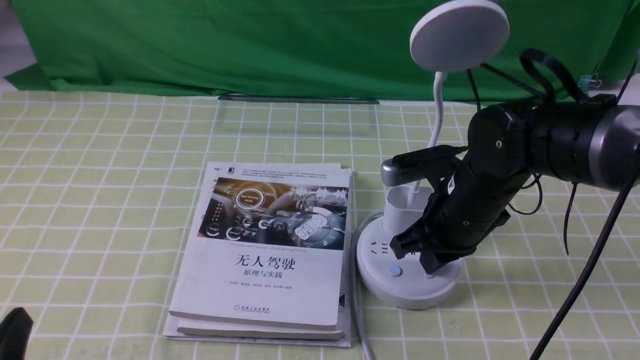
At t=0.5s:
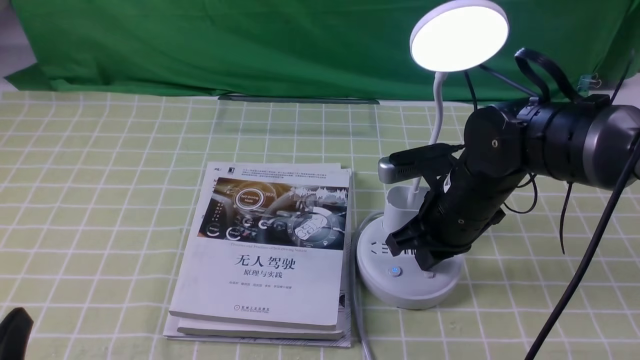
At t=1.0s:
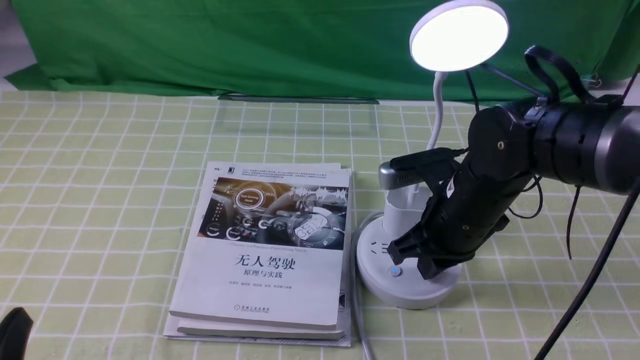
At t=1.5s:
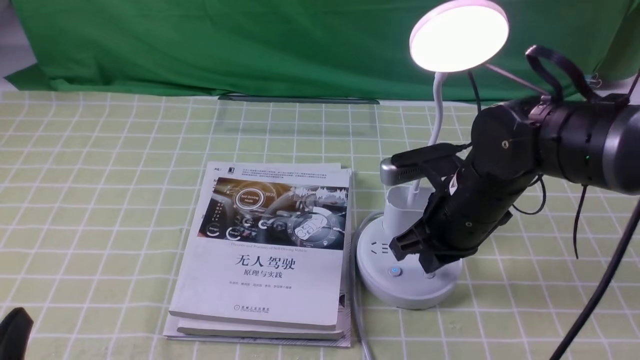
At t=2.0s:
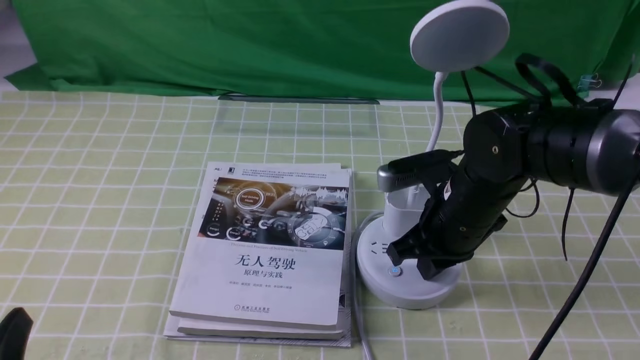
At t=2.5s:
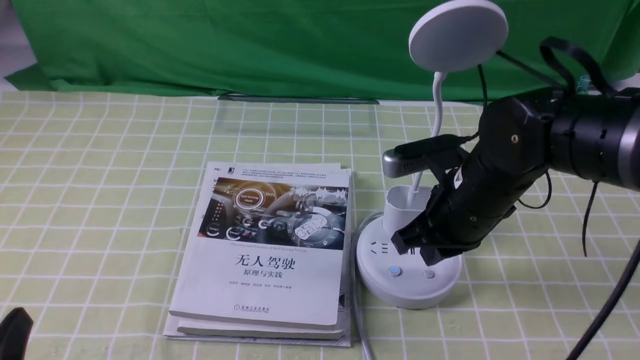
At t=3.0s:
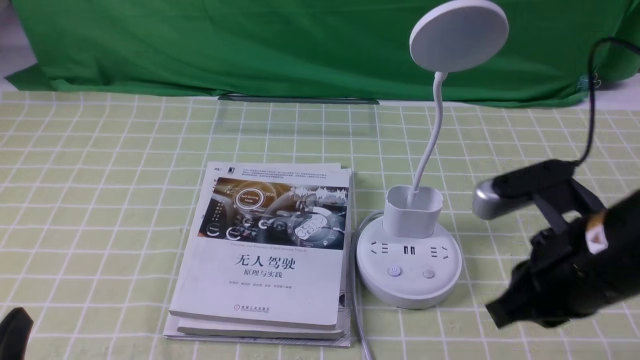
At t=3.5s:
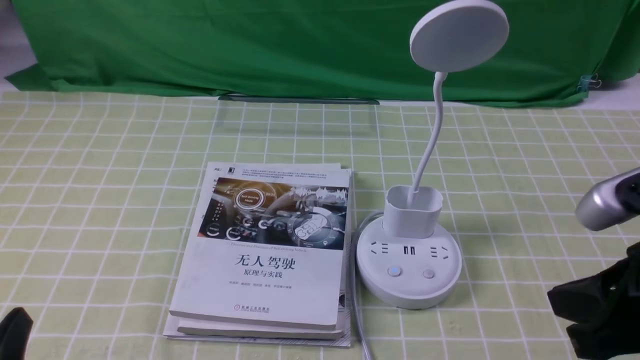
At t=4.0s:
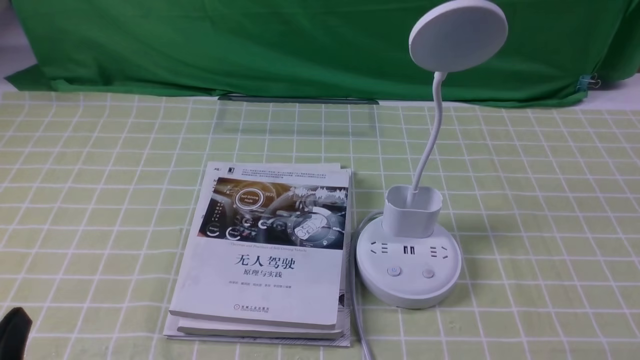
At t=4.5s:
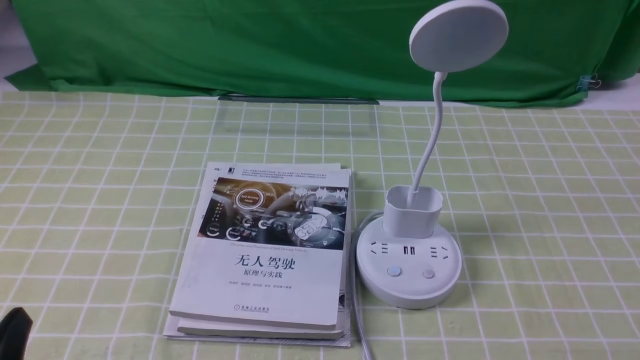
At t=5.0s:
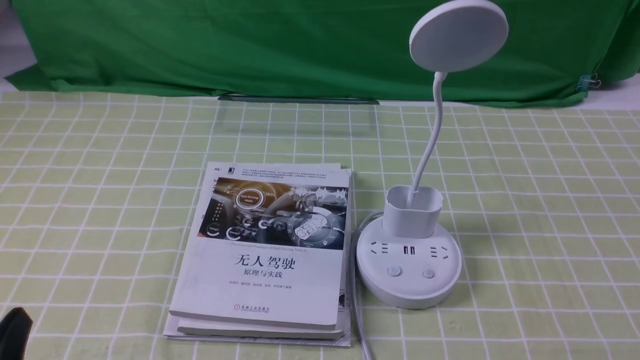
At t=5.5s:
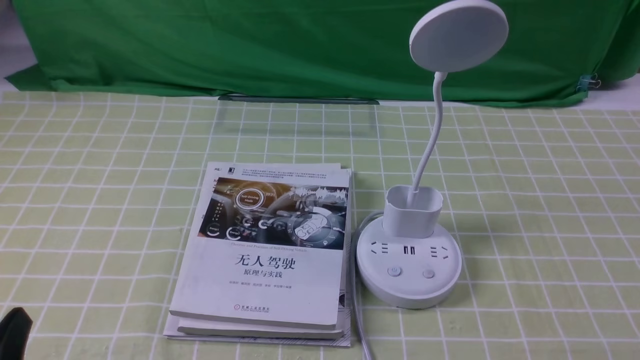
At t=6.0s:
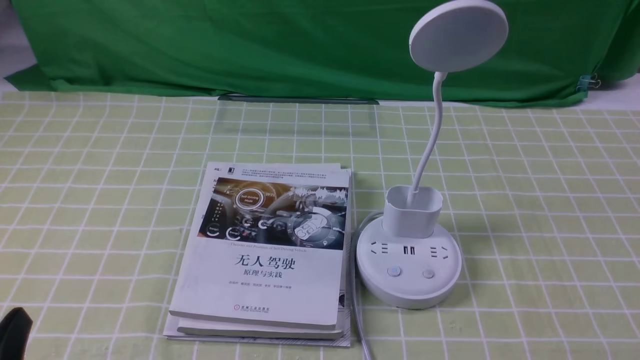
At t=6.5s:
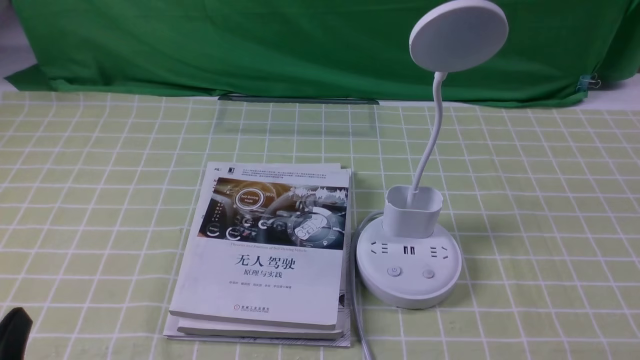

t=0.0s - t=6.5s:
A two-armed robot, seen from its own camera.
Task of the whole recording: turn off the desk lamp on the green coffee tablecloth by hand.
Step, t=0.0s - t=2.5s: use the right arm to press the button switch on the lamp holder.
t=0.0s - t=2.0s: The grippers stay close to where they were, moving slightly.
t=2.0s - t=4.5s: The right gripper is displaced backward and to the right by some 35 cm.
